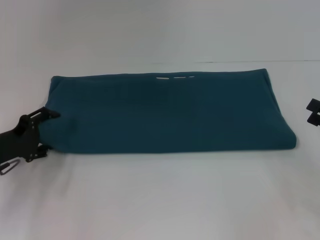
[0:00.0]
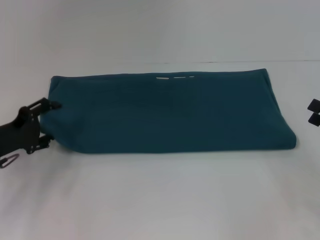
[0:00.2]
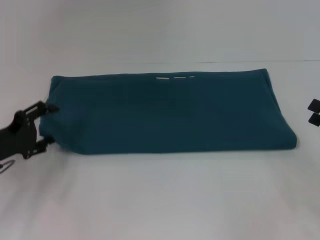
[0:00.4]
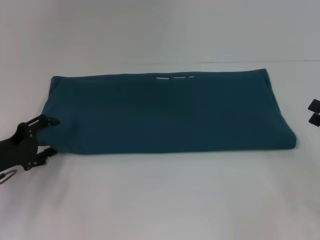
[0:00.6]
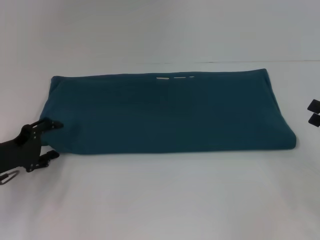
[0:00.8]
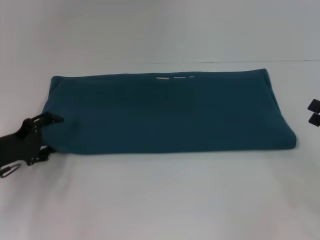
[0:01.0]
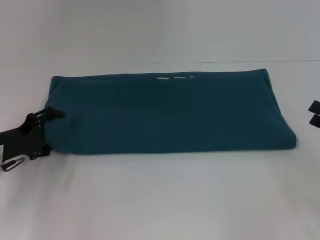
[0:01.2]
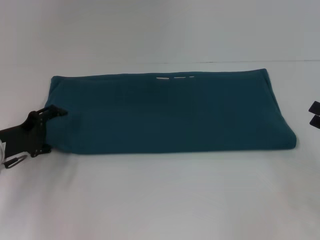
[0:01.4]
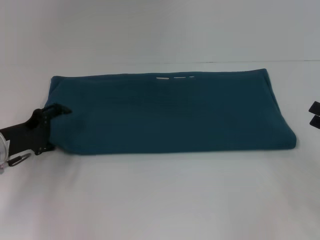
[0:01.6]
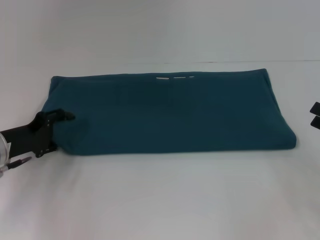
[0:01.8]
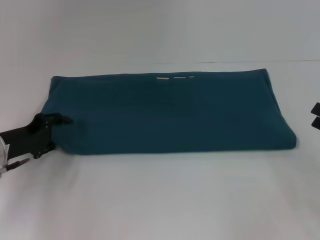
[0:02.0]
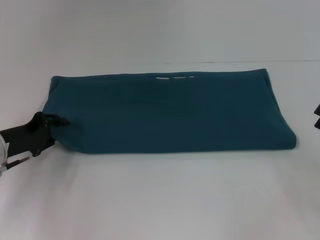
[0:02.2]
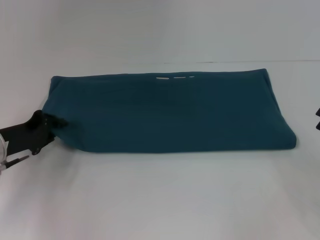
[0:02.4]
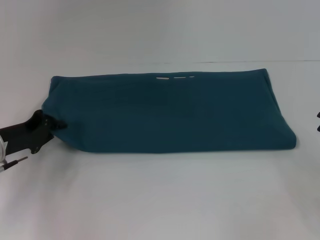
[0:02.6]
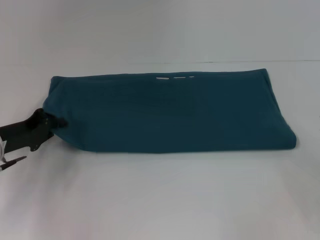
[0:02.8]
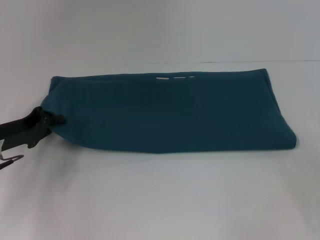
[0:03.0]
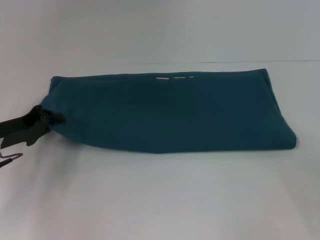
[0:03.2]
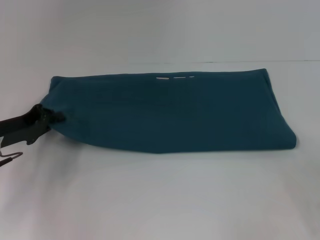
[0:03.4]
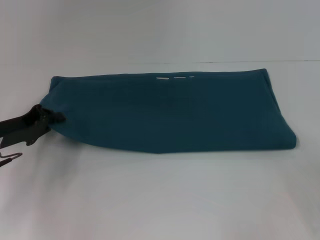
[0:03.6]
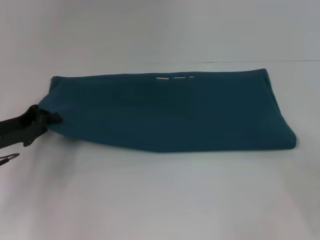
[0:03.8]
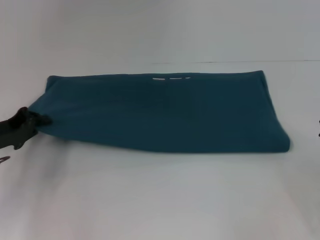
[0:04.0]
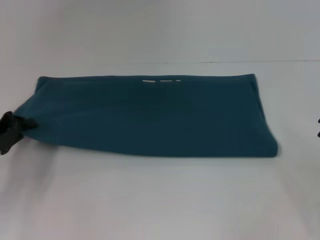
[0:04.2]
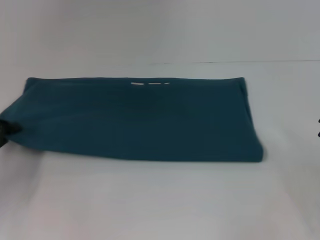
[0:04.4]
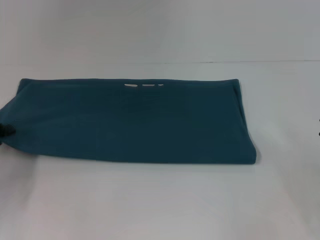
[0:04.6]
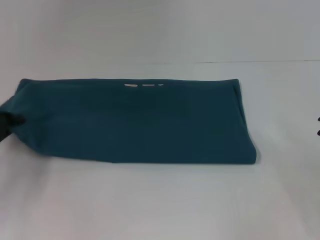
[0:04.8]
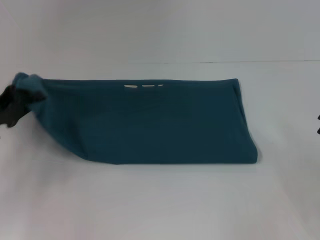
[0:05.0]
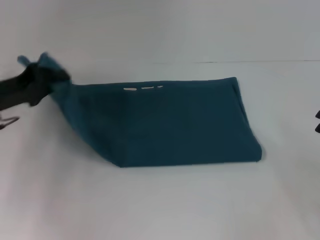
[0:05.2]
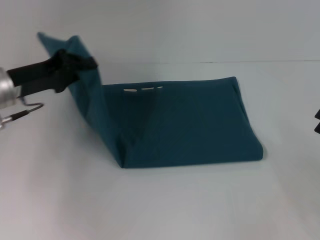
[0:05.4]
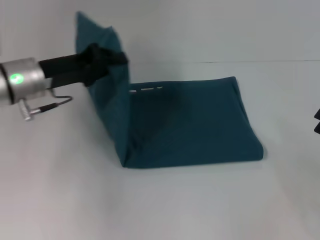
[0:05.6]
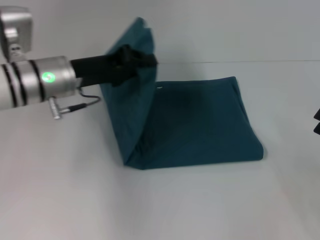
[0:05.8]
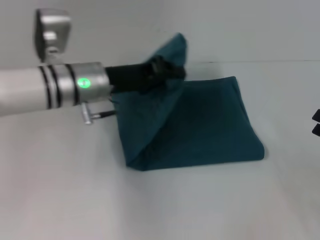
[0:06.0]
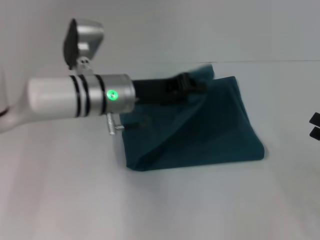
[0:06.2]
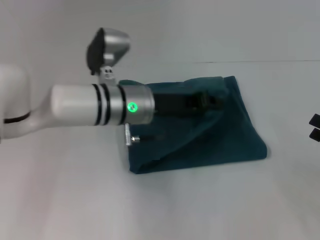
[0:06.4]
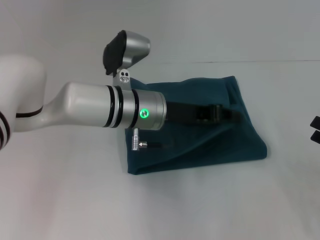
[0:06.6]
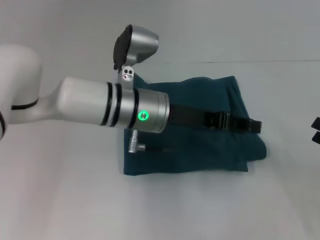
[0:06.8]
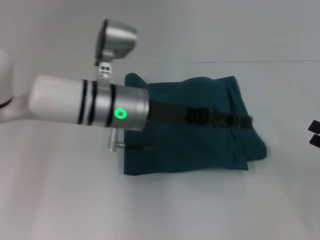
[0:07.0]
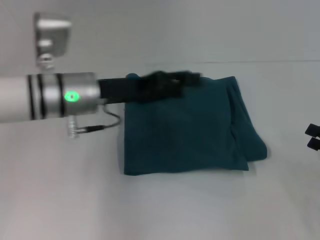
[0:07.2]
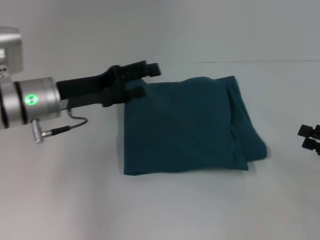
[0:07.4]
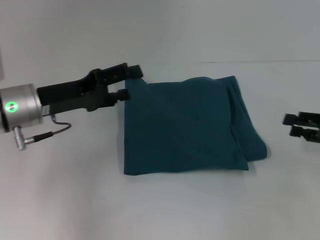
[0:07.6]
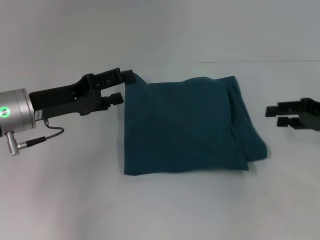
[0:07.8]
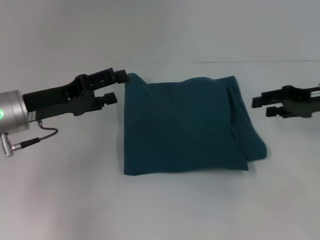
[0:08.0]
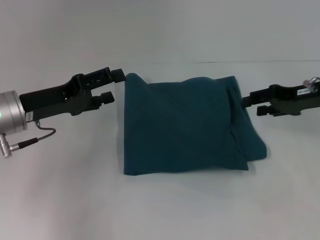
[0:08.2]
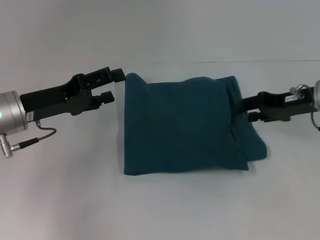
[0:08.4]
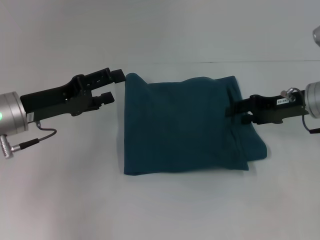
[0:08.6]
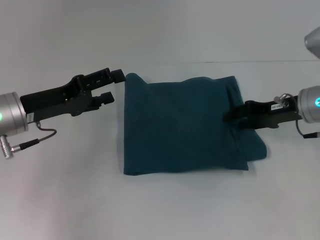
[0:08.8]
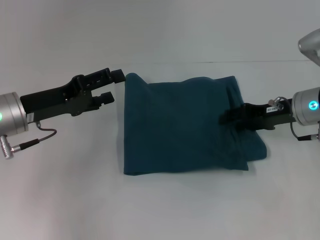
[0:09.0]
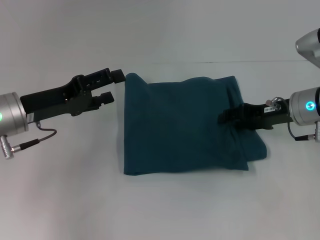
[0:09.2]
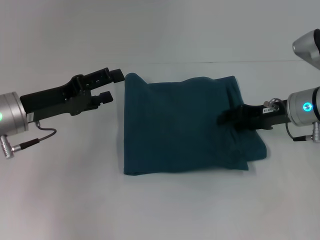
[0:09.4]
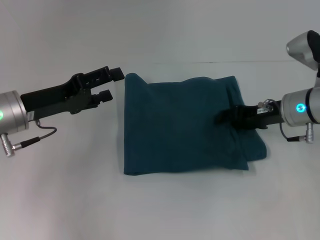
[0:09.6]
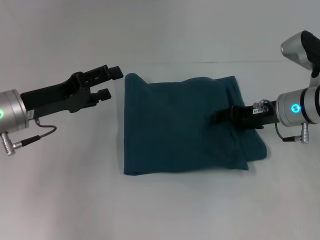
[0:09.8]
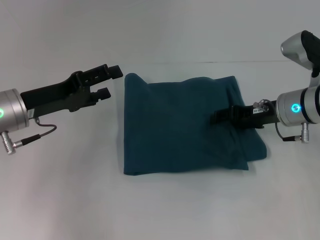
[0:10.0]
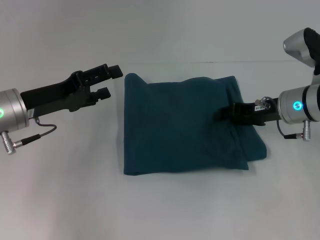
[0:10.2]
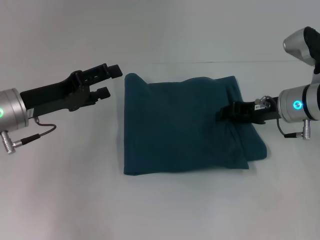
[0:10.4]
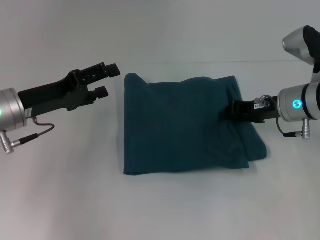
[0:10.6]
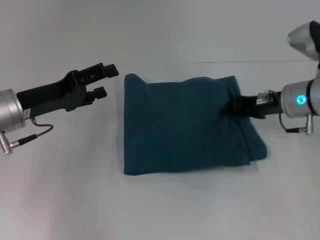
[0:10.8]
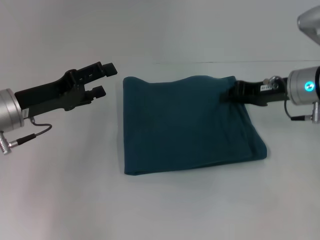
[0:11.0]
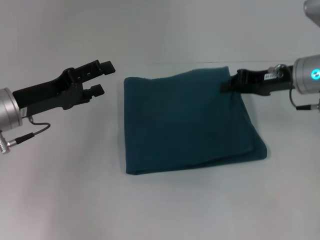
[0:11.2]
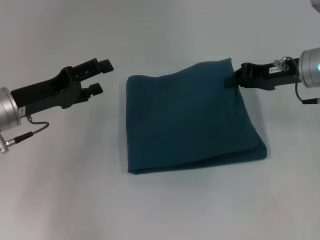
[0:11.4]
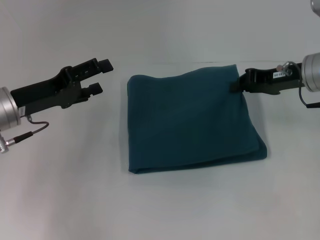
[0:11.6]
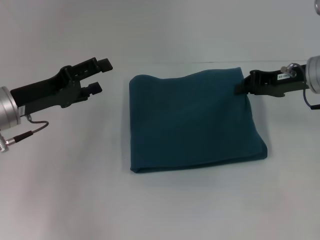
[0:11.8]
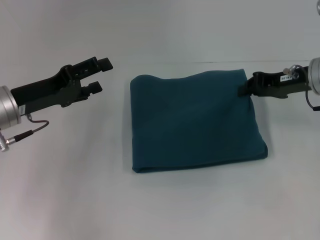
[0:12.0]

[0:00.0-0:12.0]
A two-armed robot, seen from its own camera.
Step, 0:00.0 to 0:07.2: Fold the clothes to the left.
0:00.0 to 0:01.6: The grippers stay close to where they were, moving slightly.
0:01.6 to 0:03.0: The left gripper closes.
0:03.0 to 0:04.4: The left gripper heads to the left, covering about 5 cm.
0:04.4 to 0:06.0: The left gripper travels to the right and forward by approximately 25 cm.
0:06.0 to 0:07.6: The right gripper is displaced forward by some 5 cm. The left gripper goes roughly 10 cm to the left, and opens.
0:07.6 to 0:09.0: The right gripper travels to the left and forward by approximately 15 cm.
0:09.0 to 0:10.4: There are only small adjustments of the grippers.
0:10.4 to 0:12.0: The right gripper is displaced upward by approximately 5 cm, and closes.

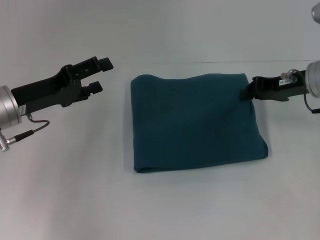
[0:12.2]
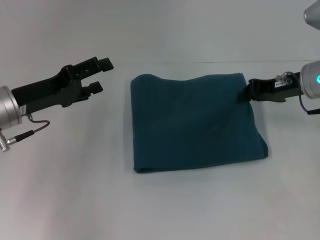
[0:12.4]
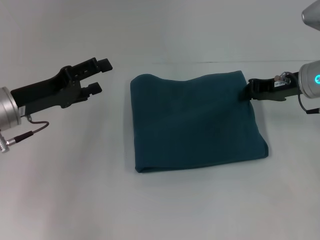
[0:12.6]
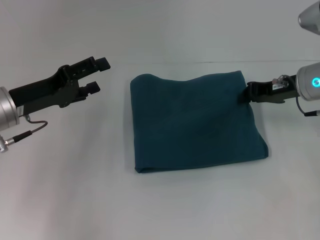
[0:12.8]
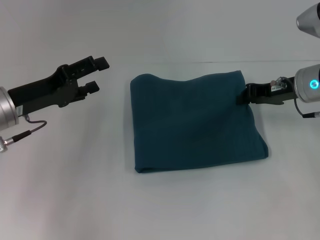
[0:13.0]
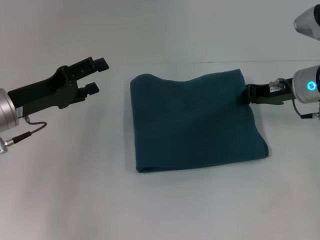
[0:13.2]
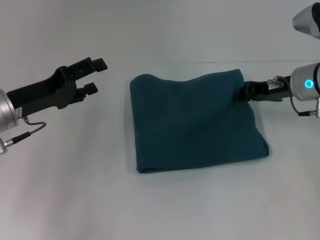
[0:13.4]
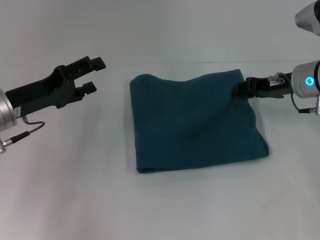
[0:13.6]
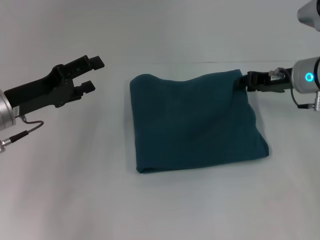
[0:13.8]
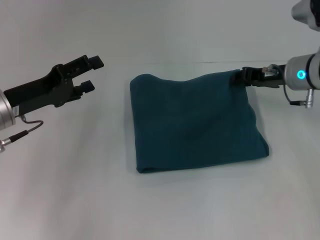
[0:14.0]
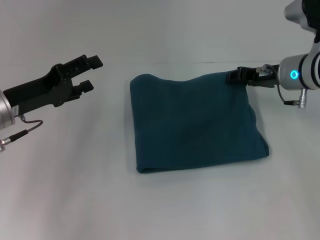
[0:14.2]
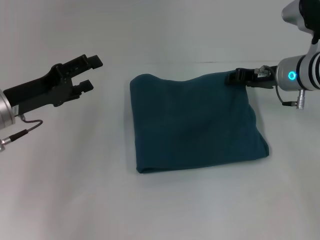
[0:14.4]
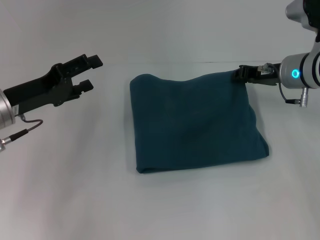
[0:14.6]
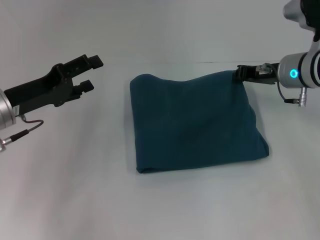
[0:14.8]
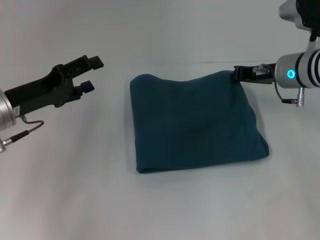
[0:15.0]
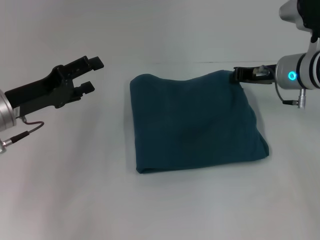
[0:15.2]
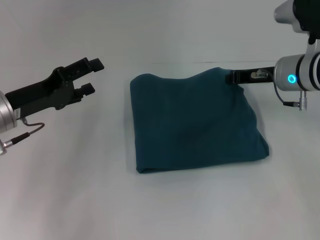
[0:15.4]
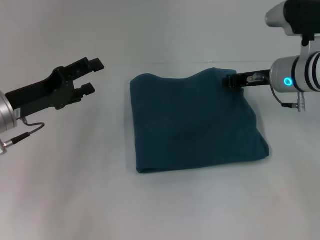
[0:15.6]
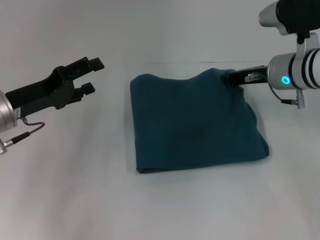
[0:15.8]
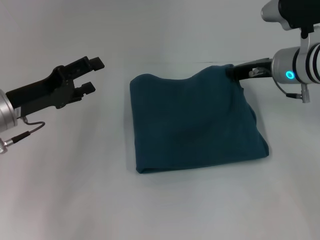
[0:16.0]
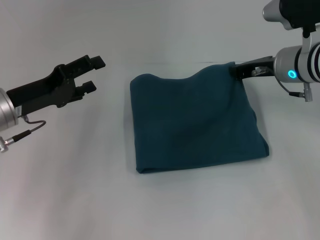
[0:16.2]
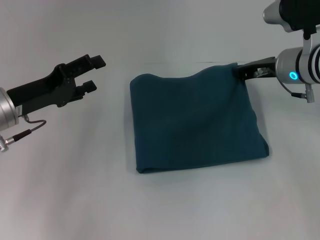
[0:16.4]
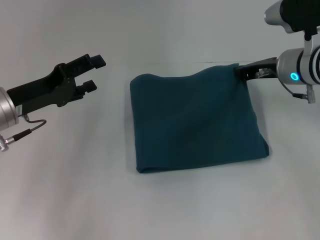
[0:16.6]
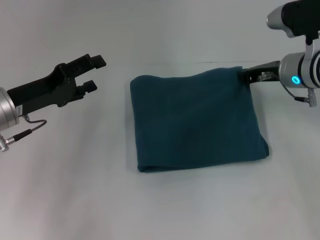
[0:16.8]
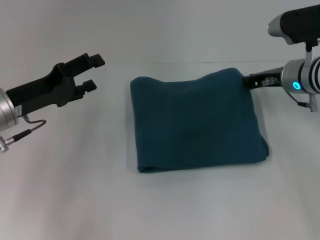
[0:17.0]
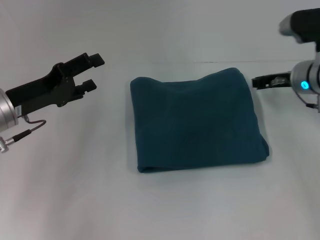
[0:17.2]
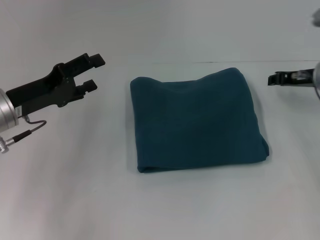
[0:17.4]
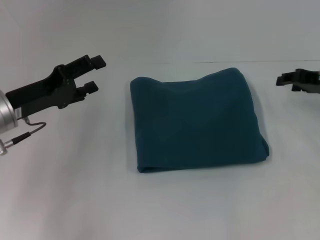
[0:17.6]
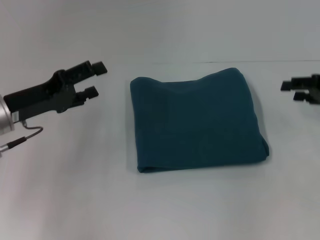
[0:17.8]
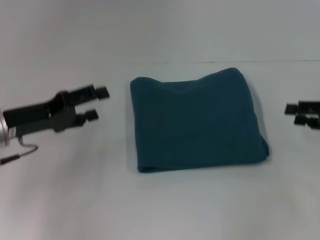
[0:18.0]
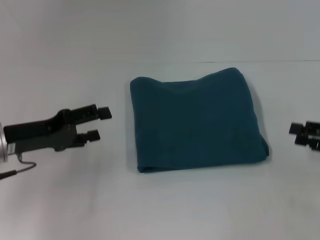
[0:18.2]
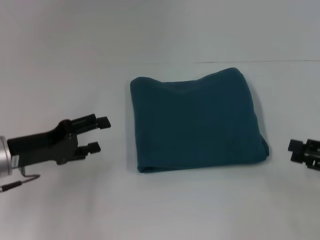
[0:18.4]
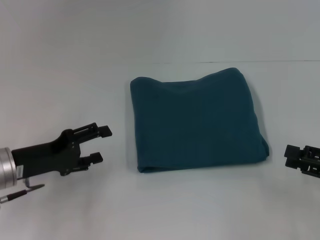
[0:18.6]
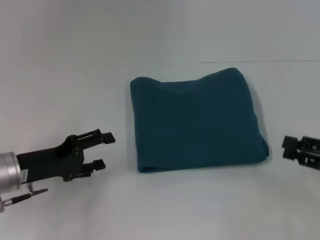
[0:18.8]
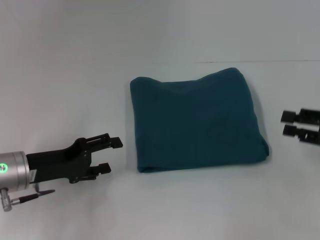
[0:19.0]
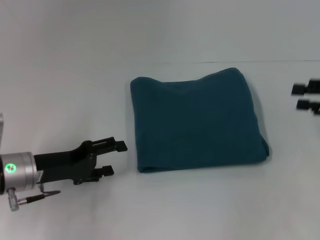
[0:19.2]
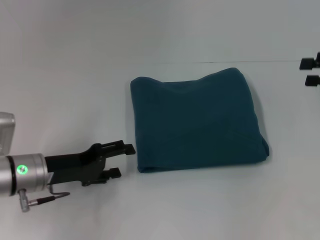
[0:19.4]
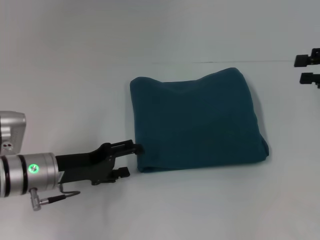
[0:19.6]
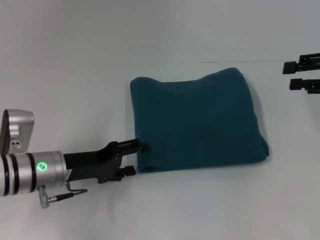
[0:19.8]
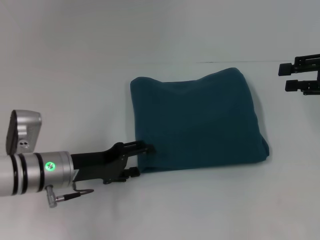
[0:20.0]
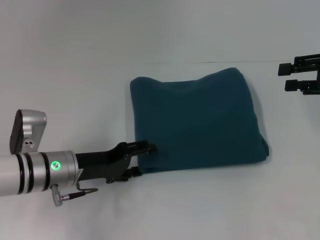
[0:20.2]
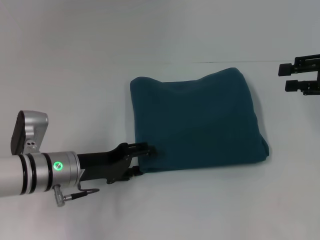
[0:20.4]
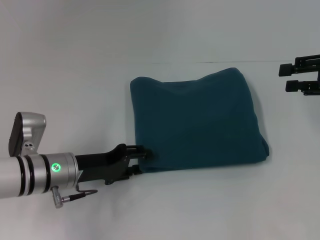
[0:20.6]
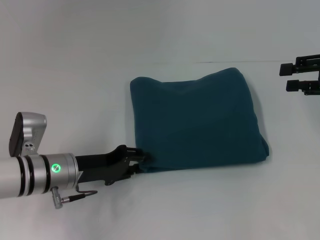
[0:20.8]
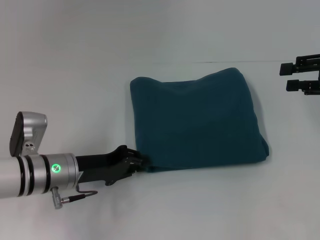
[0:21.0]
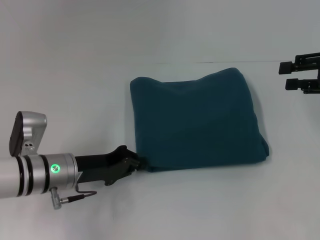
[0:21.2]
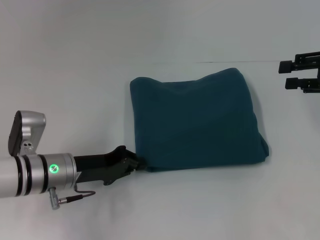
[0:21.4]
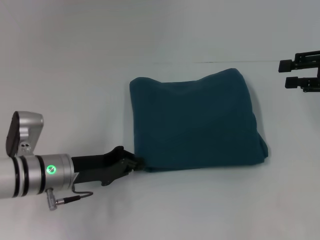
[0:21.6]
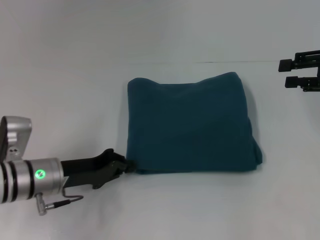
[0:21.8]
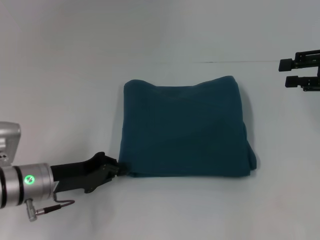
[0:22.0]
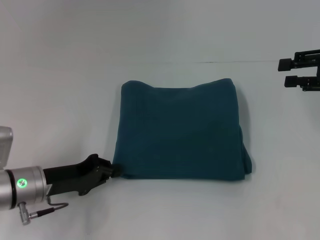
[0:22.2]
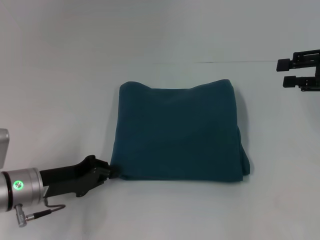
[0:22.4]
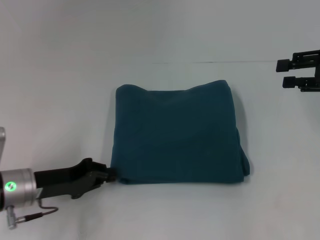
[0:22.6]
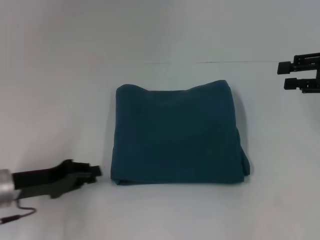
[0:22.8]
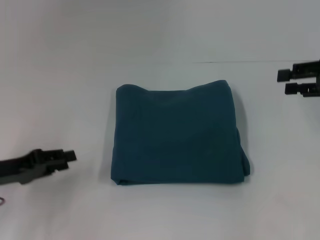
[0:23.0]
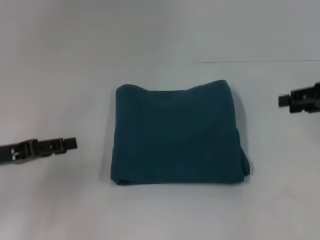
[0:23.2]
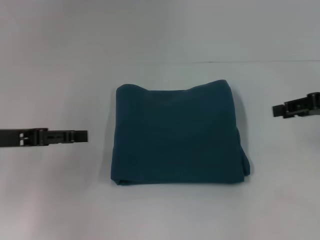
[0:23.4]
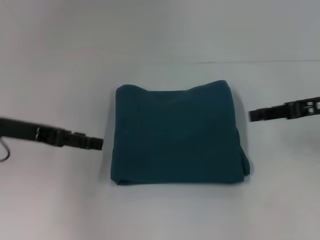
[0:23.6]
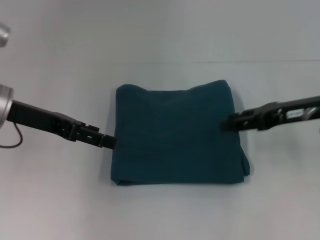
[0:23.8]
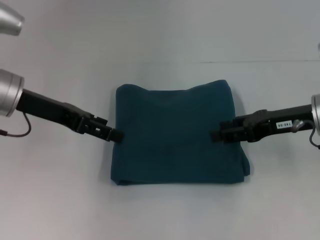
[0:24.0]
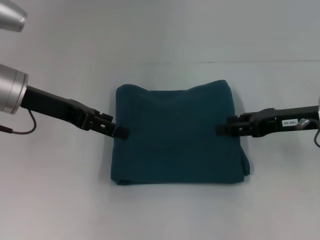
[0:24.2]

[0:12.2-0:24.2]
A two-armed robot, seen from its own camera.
0:12.2 to 0:13.8: There are only small adjustments of the grippers.
0:13.8 to 0:15.2: The right gripper closes up.
0:16.6 to 0:18.2: The right gripper goes roughly 20 cm to the right and backward, and opens.
0:18.2 to 0:19.8: The left gripper goes roughly 10 cm to the right and downward; the right gripper is displaced upward and forward by some 10 cm.
0:19.8 to 0:21.2: The left gripper closes its fingers.
0:21.2 to 0:22.6: The left gripper moves to the left, roughly 5 cm.
0:22.6 to 0:24.2: The right gripper shifts roughly 10 cm to the left and downward, while the left gripper travels upward and forward by approximately 15 cm, and opens its fingers.
